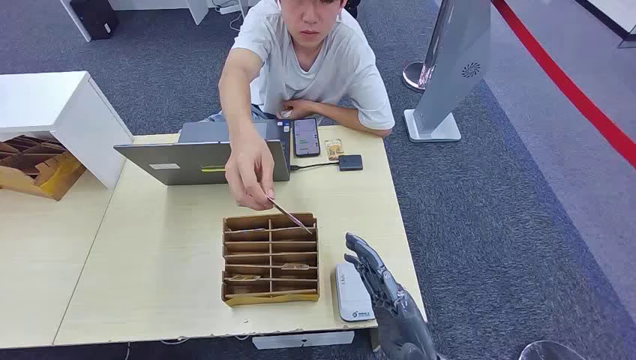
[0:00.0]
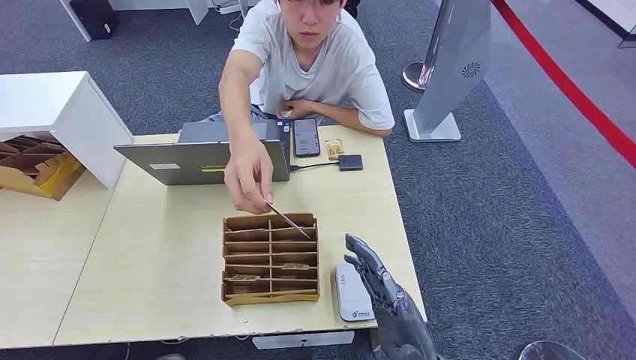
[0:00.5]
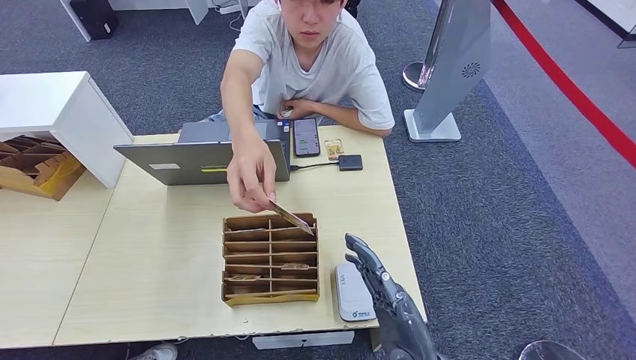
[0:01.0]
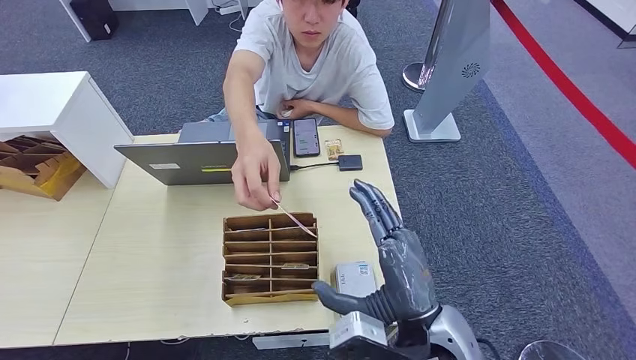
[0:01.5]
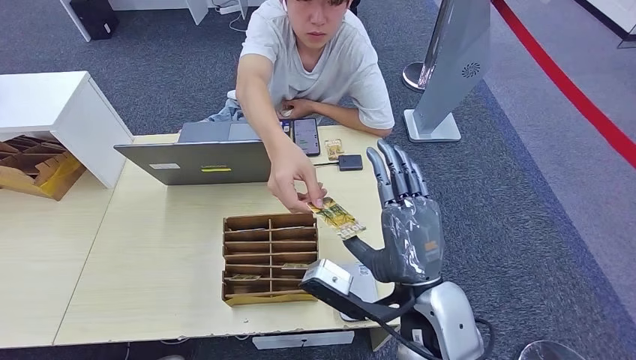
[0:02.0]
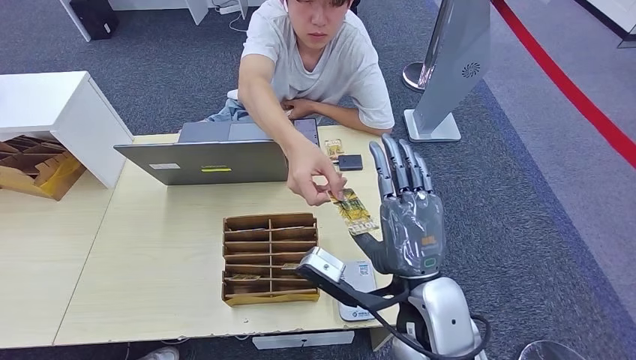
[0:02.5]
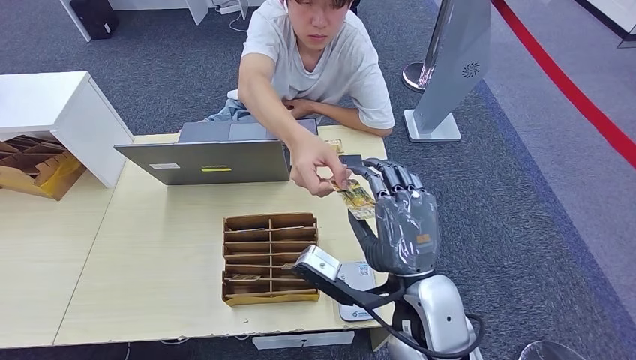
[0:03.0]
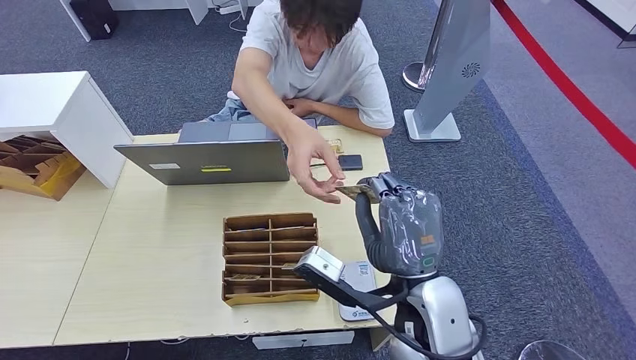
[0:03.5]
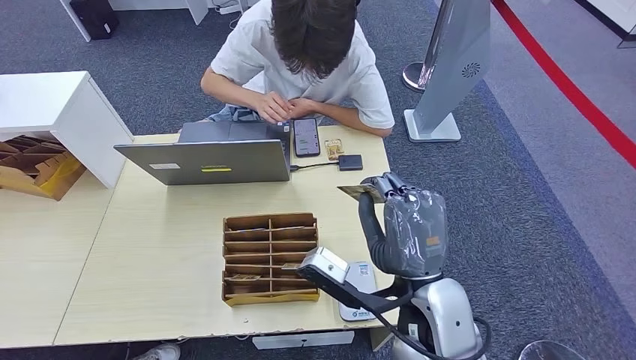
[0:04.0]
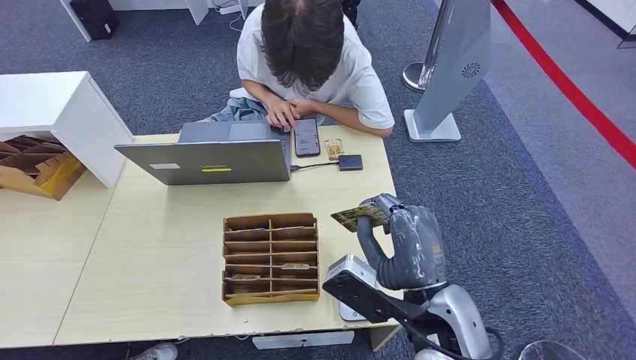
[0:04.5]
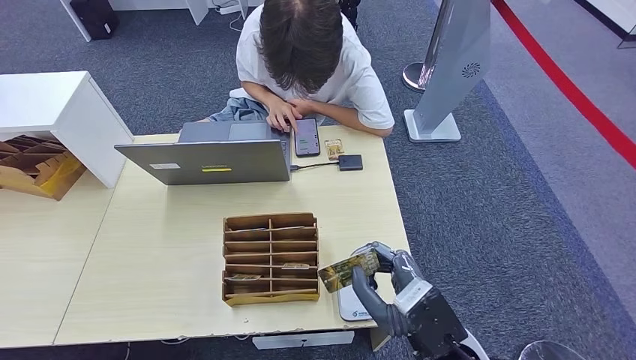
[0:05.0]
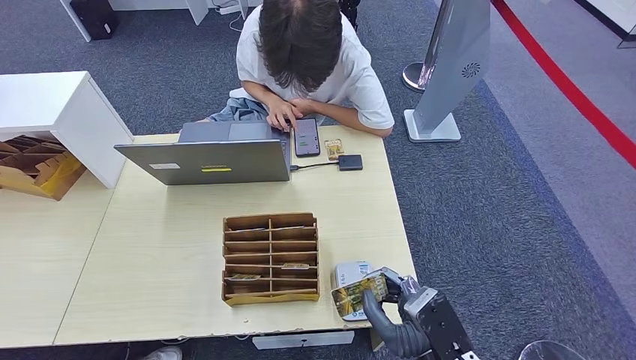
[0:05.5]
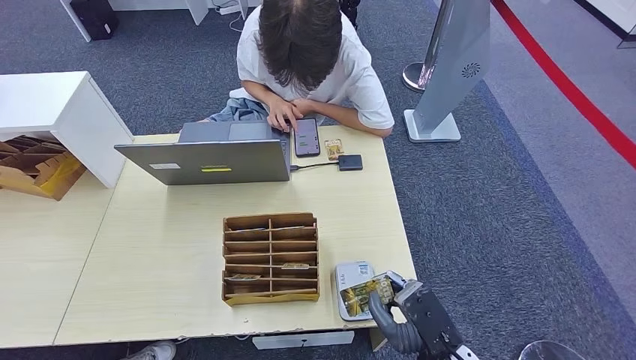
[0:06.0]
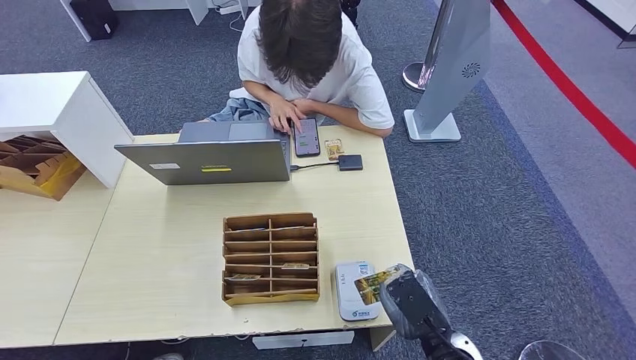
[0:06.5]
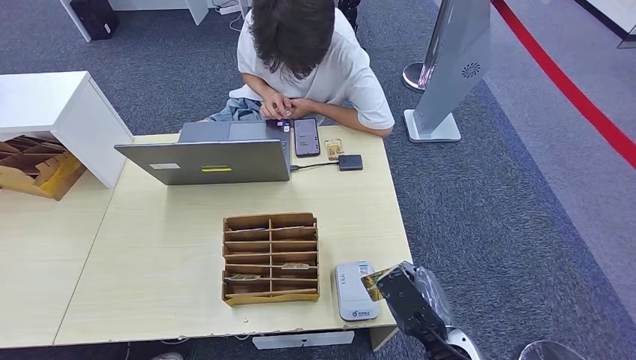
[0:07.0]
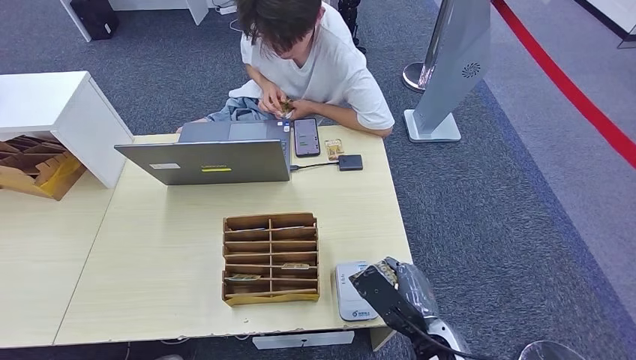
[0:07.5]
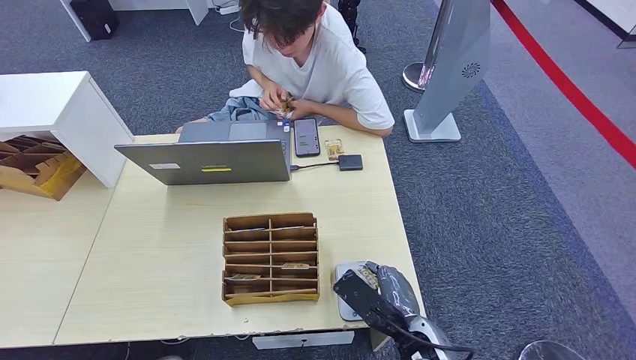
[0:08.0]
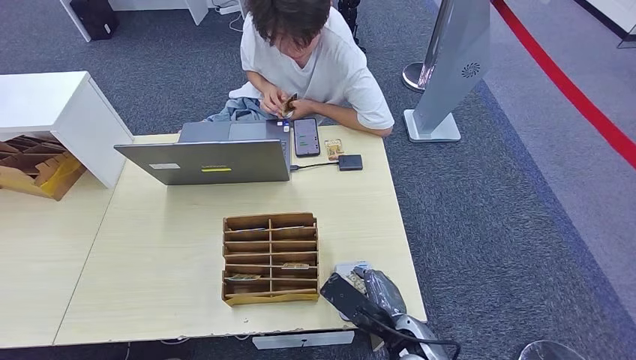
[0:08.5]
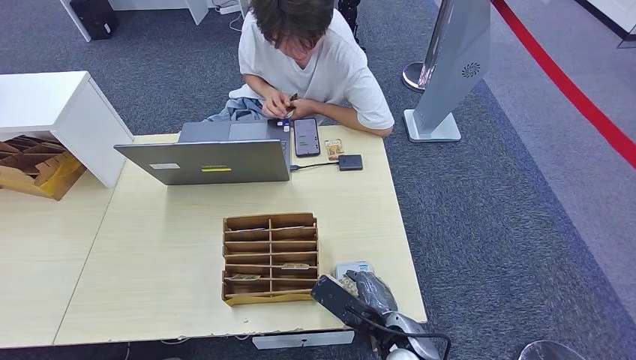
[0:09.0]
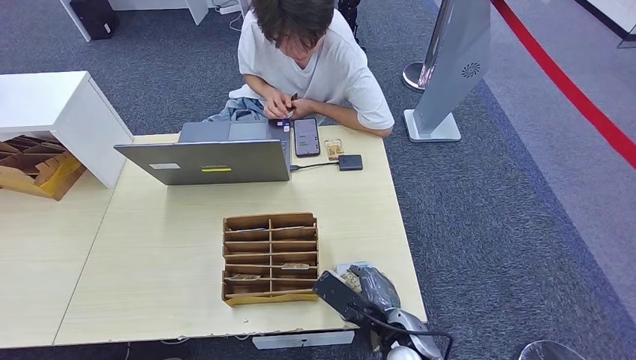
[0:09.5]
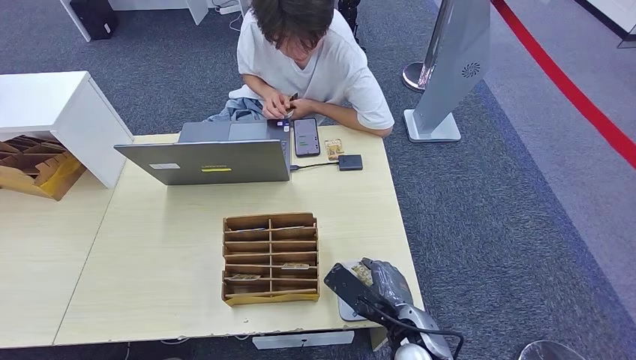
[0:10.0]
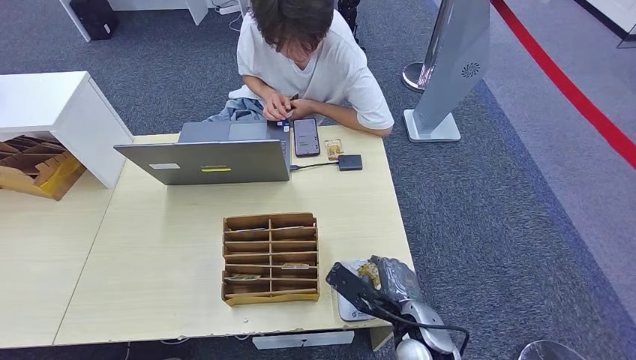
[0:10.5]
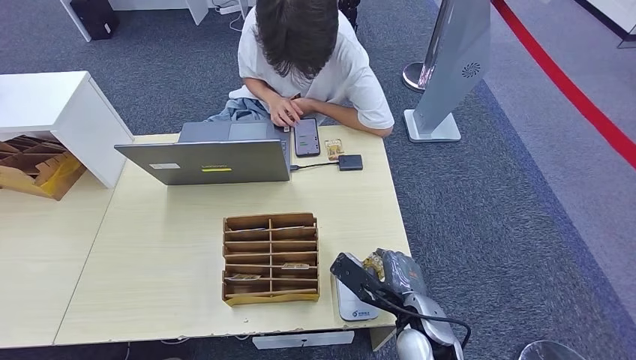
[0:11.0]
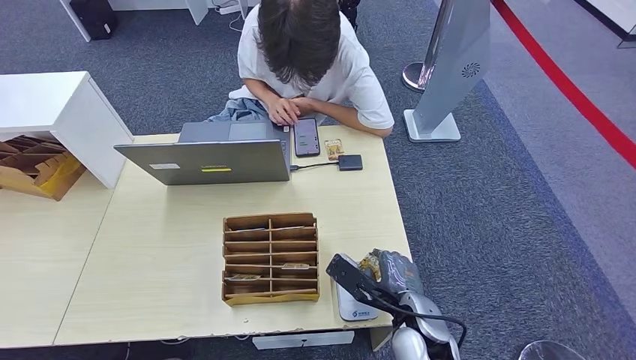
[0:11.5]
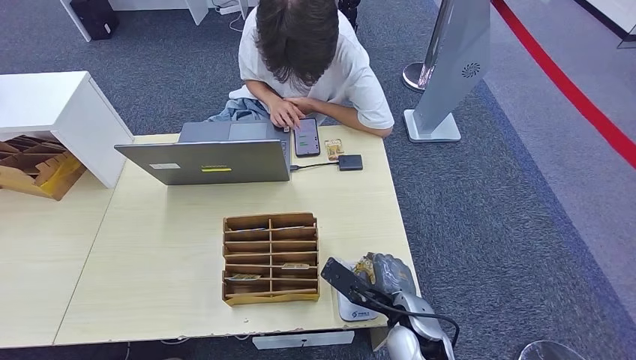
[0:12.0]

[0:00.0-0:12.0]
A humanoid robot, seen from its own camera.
Step, 0:00.0 to 0:02.5: Take the ID card from the person's hand.
Step, 0:03.0 to 0:10.0: Place the ID card on the card reader.
0:02.0 to 0:04.0: The hands stay close to where they were, moving slightly.
0:04.0 to 0:06.0: The right hand shifts roughly 15 cm downward, backward and to the right.
0:06.0 to 0:08.0: The right hand ends up about 5 cm from where it was.
0:08.0 to 0:10.0: The hands move only a little.
0:10.0 to 0:12.0: There are only small adjustments of the hands.

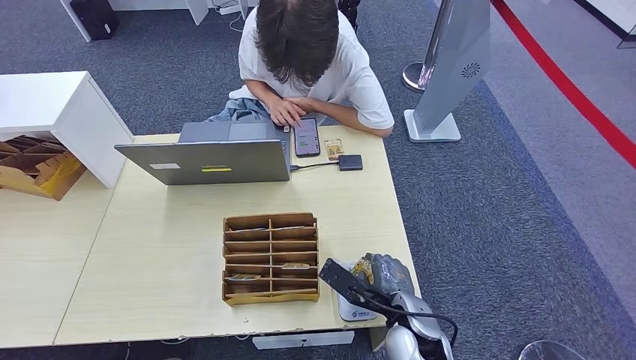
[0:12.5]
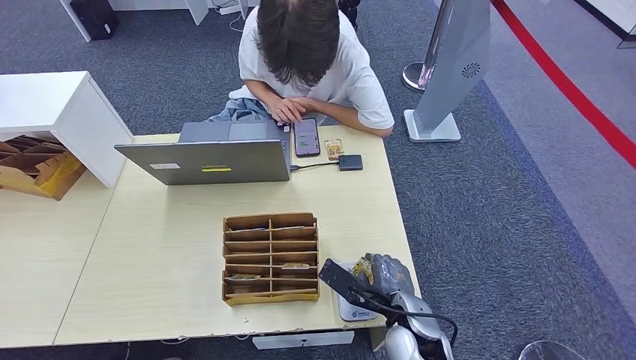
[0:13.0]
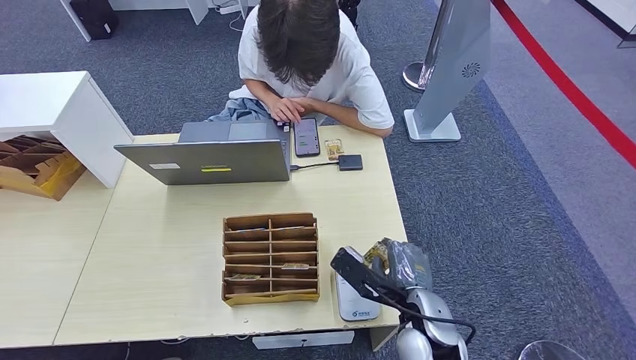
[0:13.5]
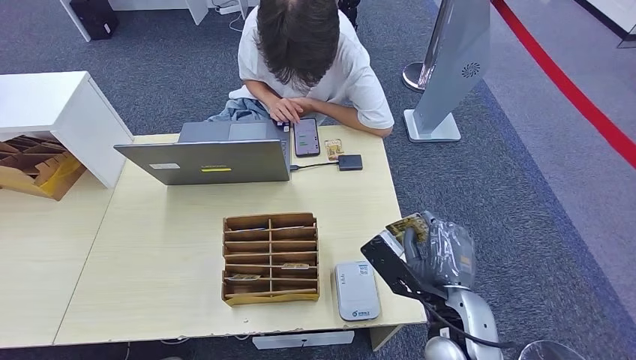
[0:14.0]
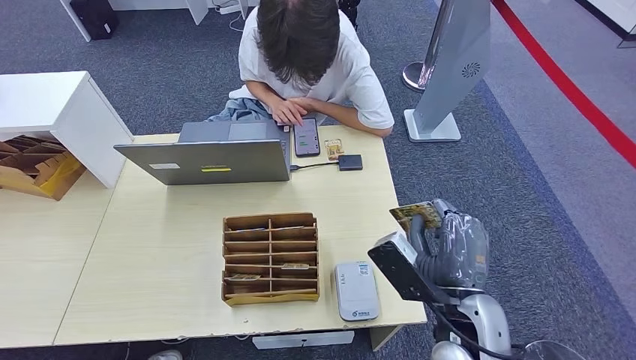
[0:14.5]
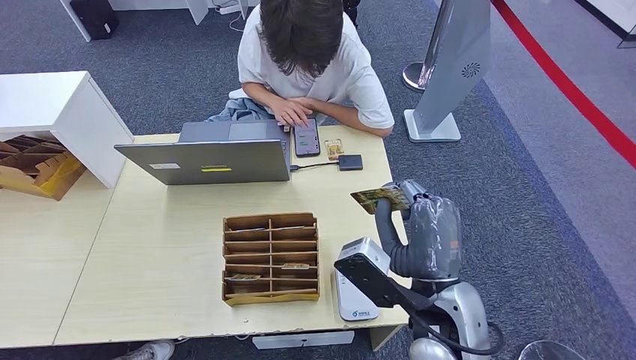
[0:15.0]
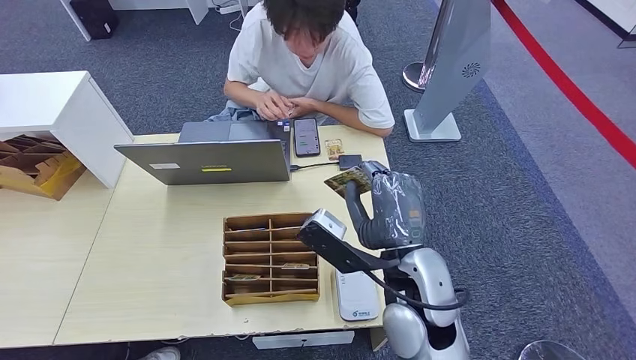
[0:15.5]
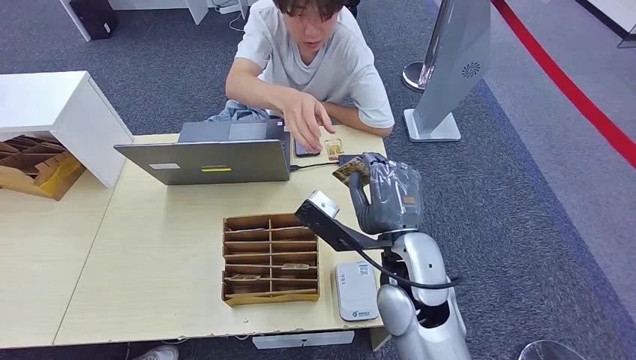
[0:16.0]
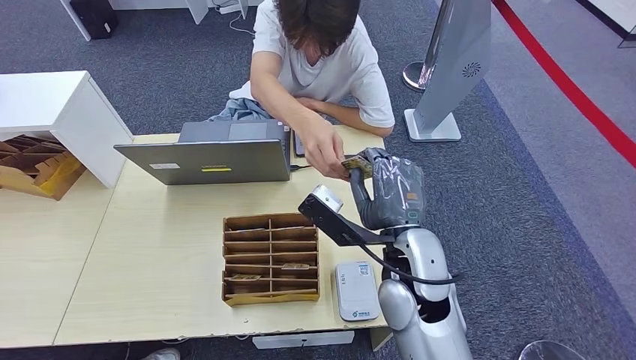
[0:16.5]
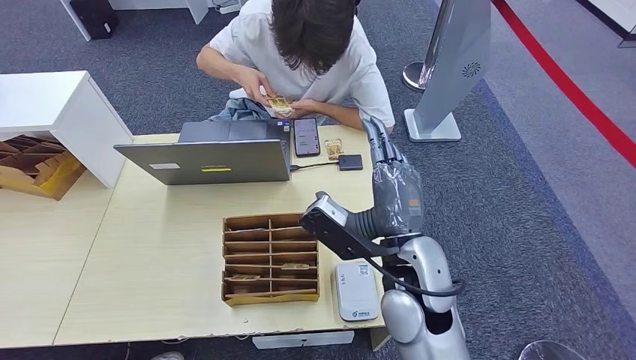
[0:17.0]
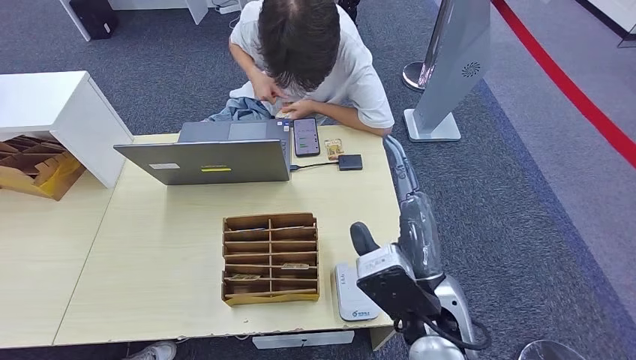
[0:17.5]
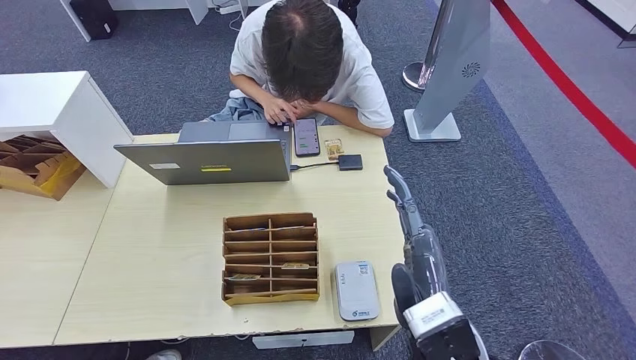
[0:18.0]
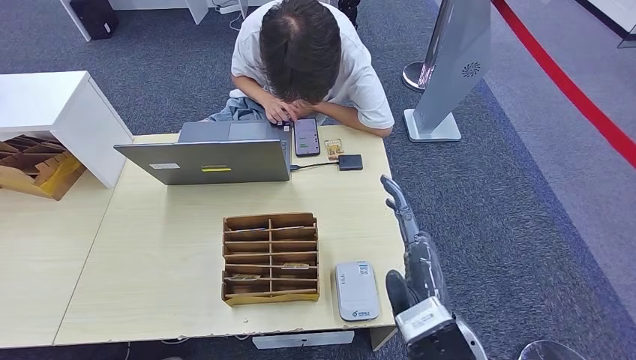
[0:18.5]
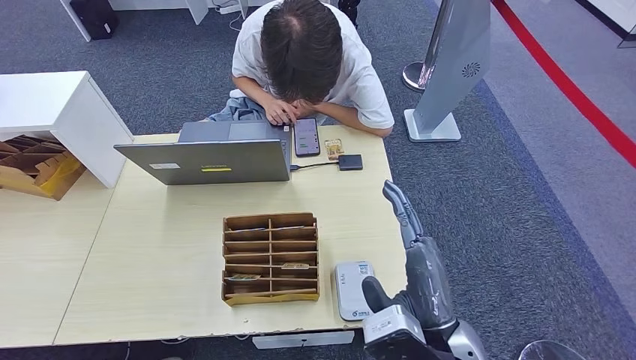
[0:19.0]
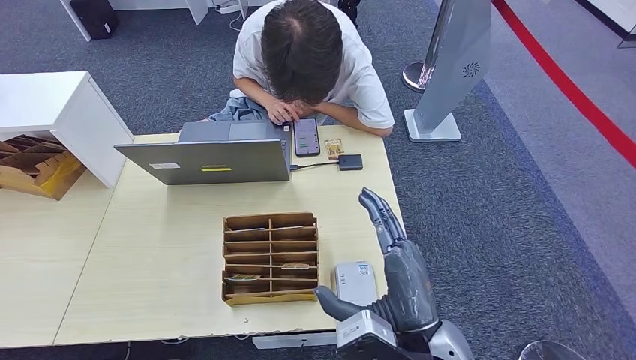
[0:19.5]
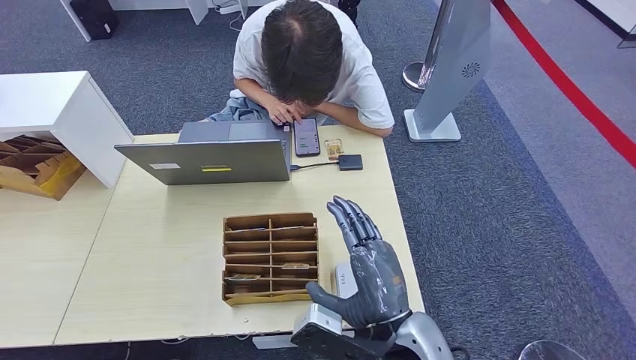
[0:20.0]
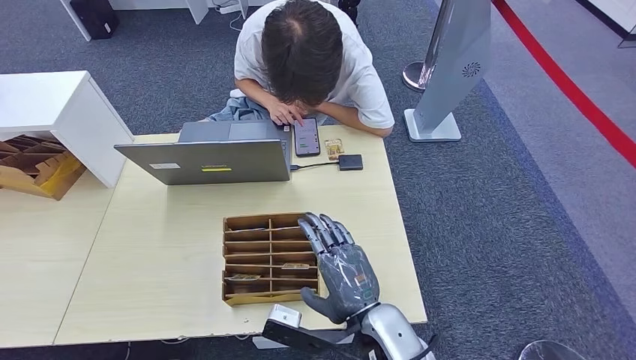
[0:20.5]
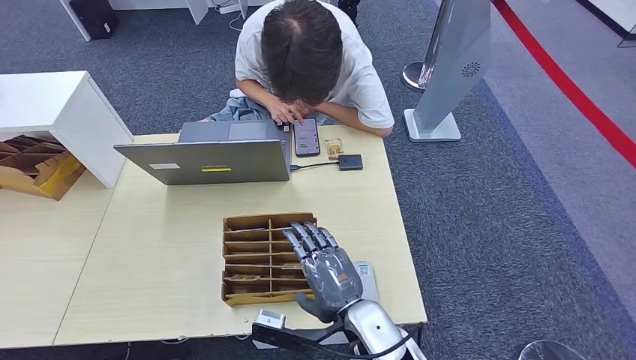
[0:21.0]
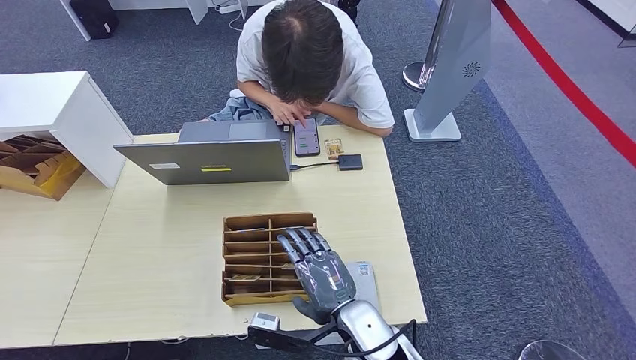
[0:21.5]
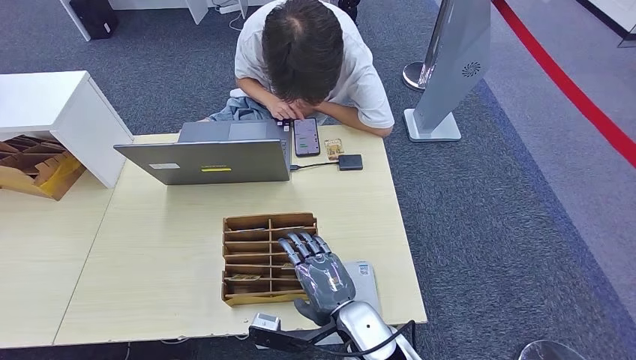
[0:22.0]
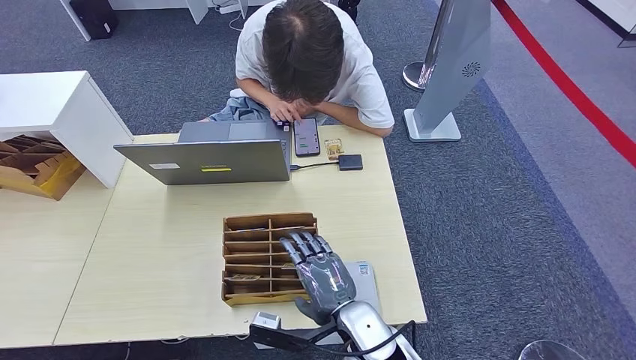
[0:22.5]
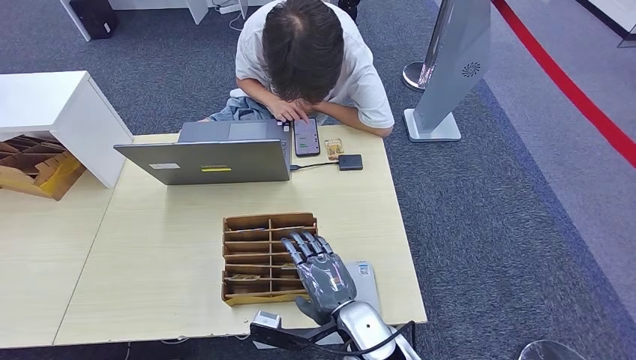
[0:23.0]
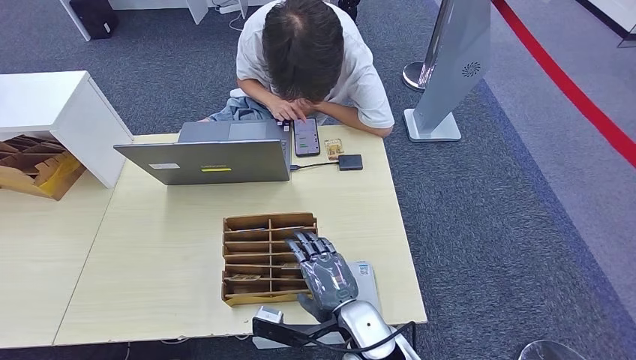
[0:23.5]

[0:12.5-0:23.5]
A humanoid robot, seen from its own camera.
Step, 0:12.5 to 0:17.0: Hand the ID card to the person.
0:12.5 to 0:14.5: The right hand travels upward by roughly 10 cm.
0:14.5 to 0:16.0: The right hand goes roughly 10 cm forward and to the left.
0:16.0 to 0:18.0: The right hand goes roughly 10 cm backward.
0:20.0 to 0:21.5: The right hand goes some 10 cm downward.
0:21.5 to 0:23.5: The hands stay close to where they were, moving slightly.
